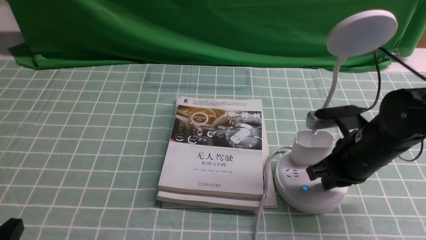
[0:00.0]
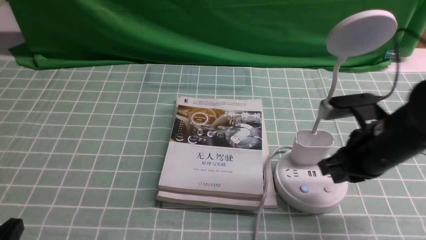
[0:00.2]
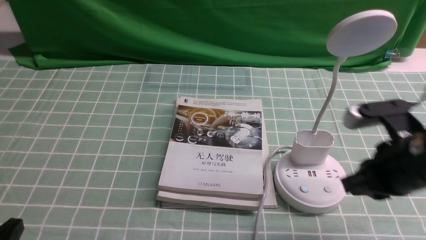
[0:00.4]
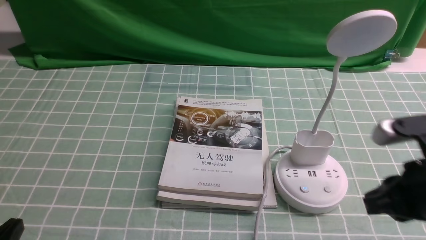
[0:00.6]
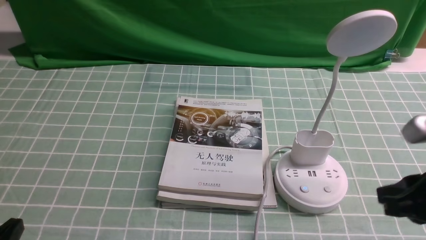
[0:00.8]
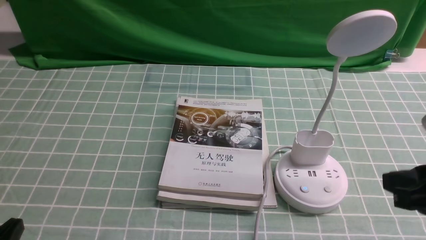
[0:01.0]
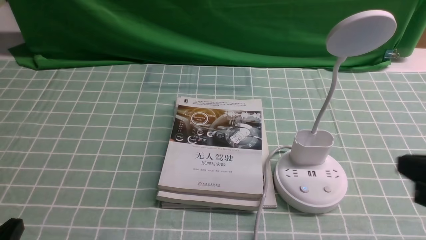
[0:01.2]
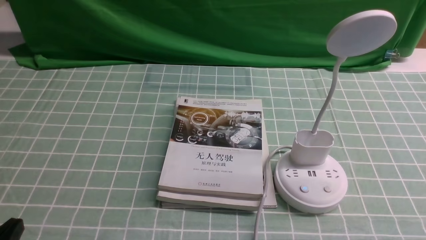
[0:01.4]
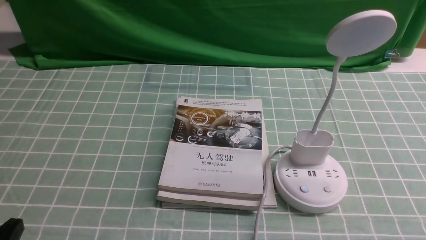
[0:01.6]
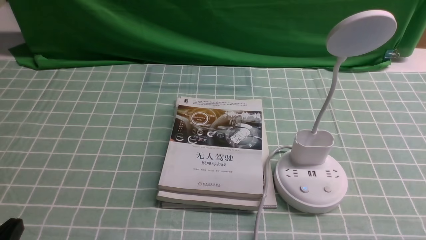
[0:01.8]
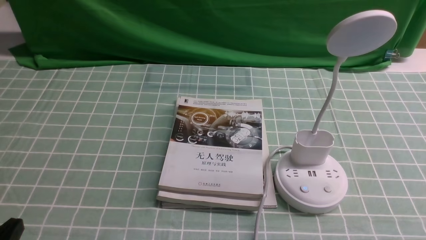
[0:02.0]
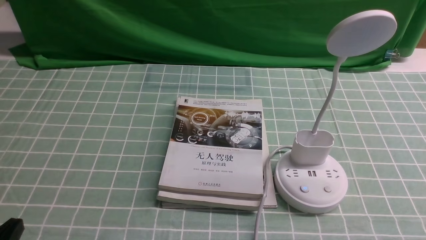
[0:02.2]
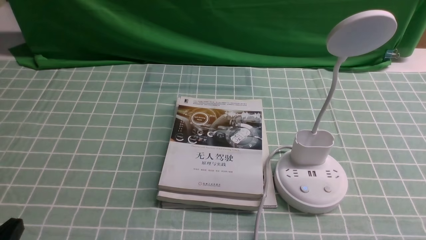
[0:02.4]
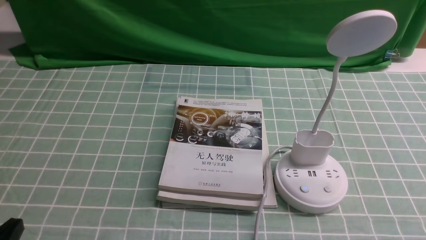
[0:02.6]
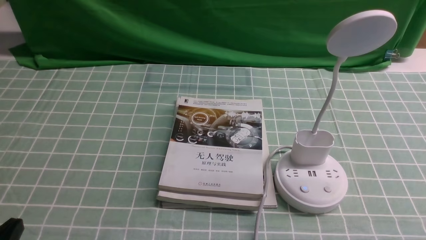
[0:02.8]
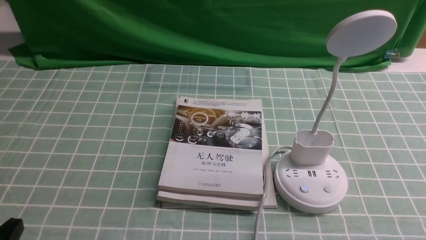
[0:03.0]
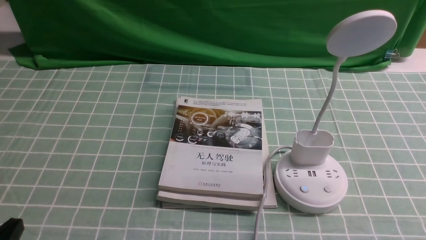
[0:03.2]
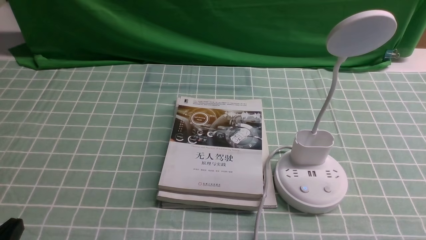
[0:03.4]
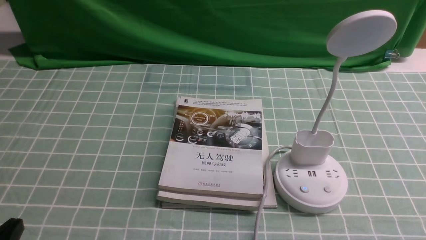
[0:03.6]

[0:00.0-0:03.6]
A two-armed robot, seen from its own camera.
Task of the whole recording: turn off the desk lamp on the blue coffee tablecloth by hand.
0:00.0 to 0:01.8: The right gripper moves backward and to the right, about 25 cm.
